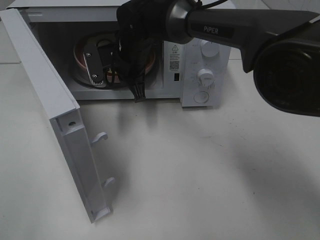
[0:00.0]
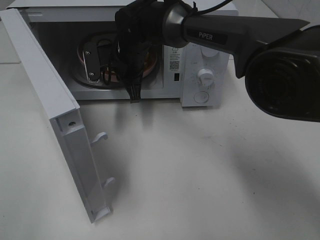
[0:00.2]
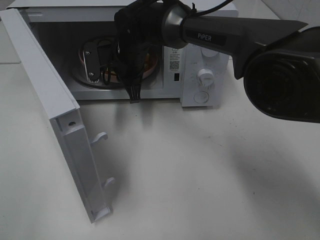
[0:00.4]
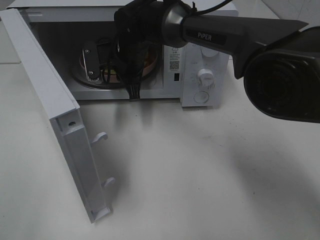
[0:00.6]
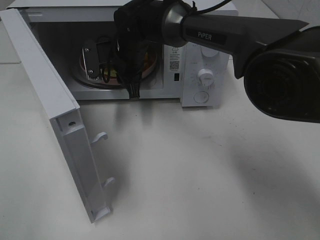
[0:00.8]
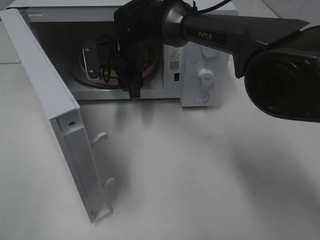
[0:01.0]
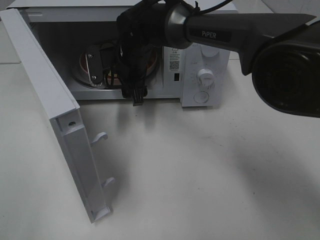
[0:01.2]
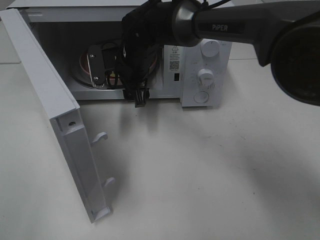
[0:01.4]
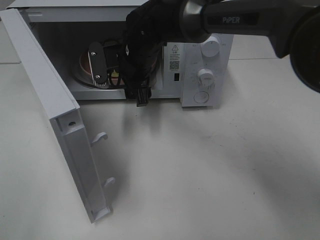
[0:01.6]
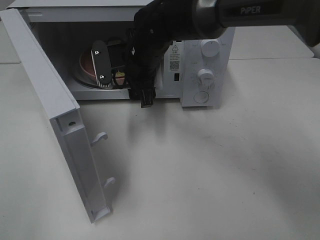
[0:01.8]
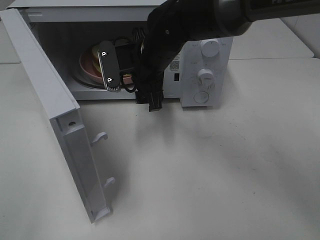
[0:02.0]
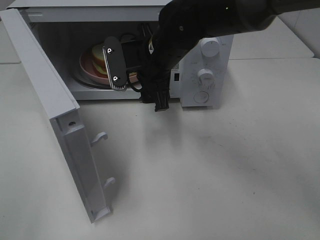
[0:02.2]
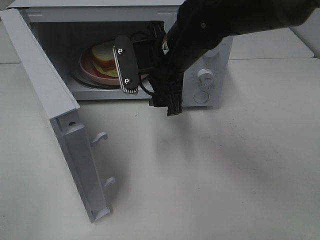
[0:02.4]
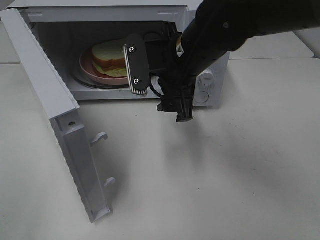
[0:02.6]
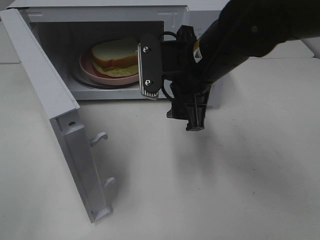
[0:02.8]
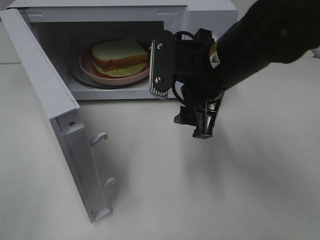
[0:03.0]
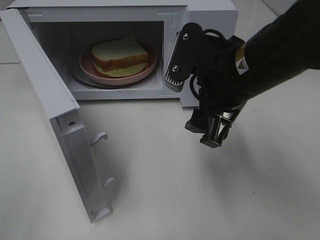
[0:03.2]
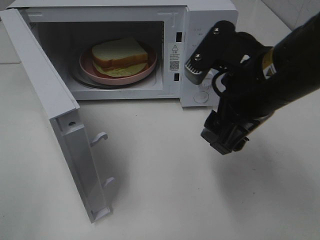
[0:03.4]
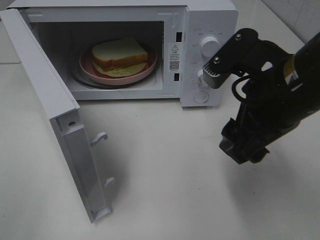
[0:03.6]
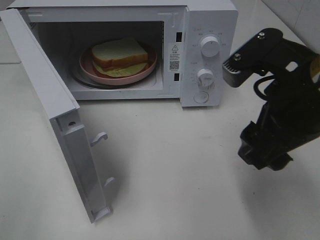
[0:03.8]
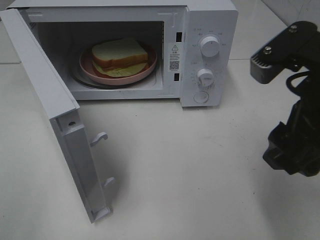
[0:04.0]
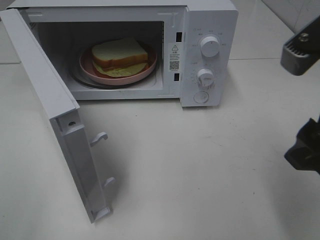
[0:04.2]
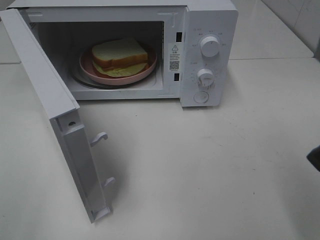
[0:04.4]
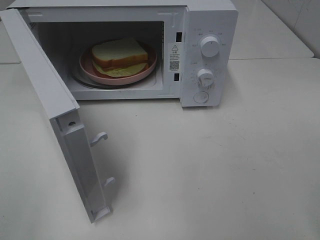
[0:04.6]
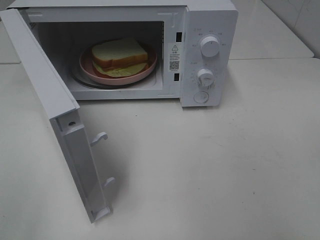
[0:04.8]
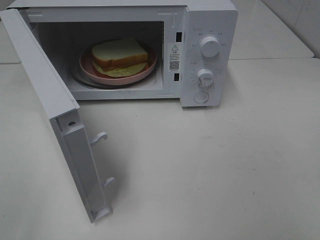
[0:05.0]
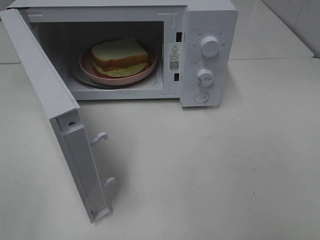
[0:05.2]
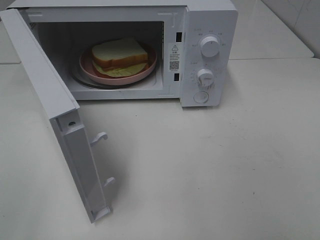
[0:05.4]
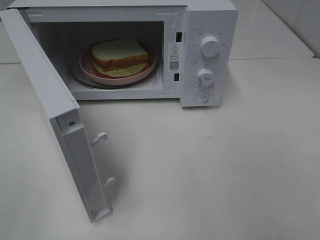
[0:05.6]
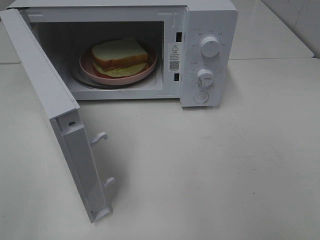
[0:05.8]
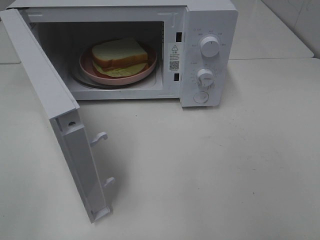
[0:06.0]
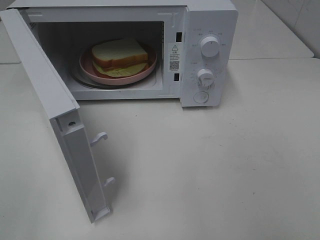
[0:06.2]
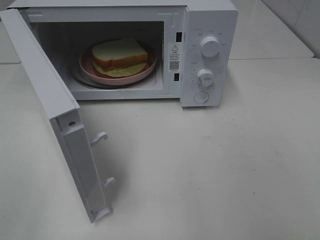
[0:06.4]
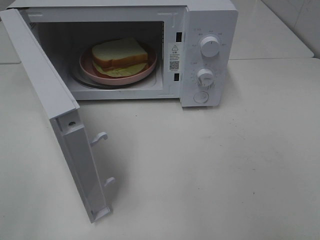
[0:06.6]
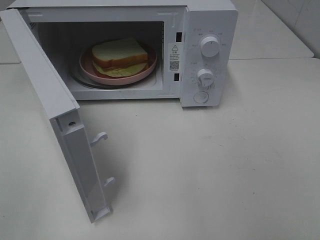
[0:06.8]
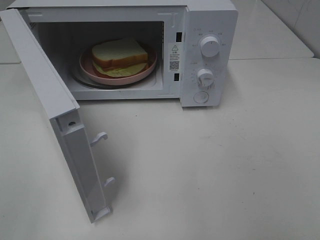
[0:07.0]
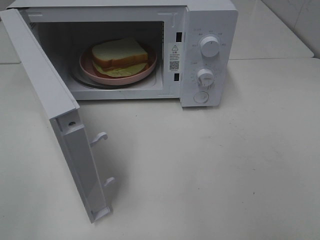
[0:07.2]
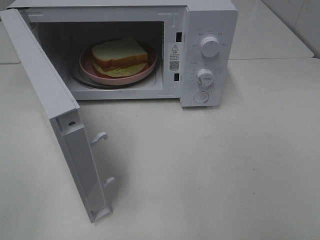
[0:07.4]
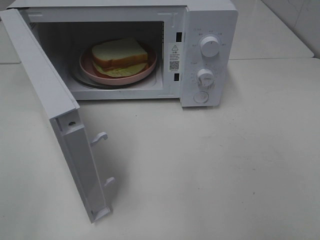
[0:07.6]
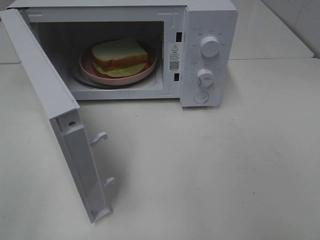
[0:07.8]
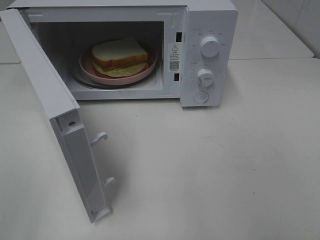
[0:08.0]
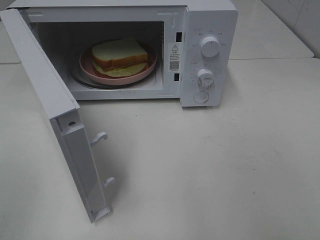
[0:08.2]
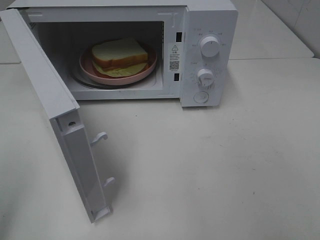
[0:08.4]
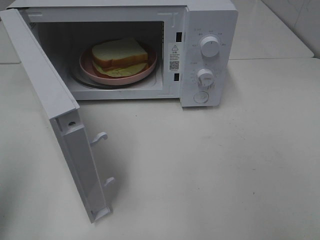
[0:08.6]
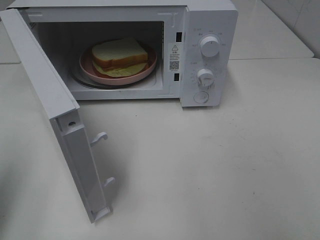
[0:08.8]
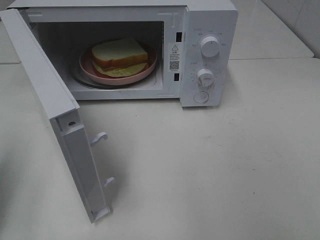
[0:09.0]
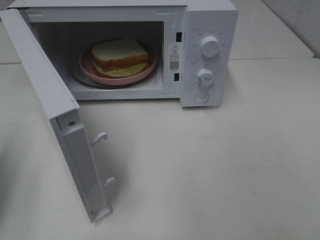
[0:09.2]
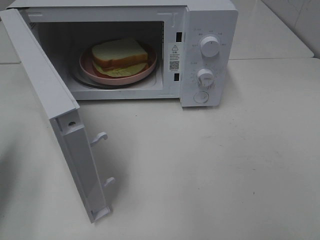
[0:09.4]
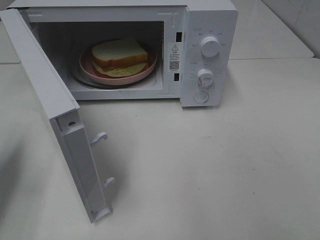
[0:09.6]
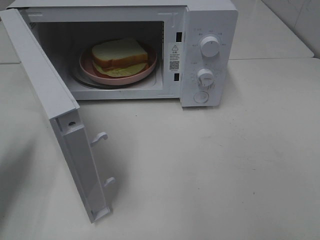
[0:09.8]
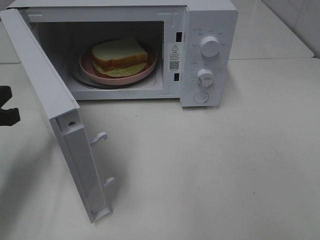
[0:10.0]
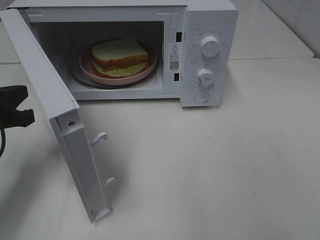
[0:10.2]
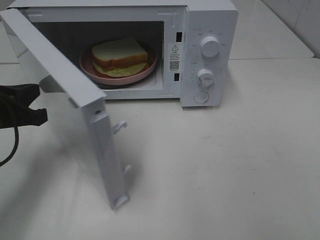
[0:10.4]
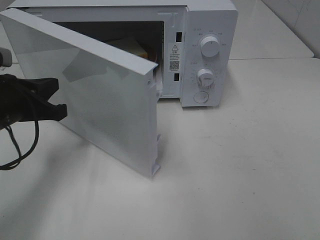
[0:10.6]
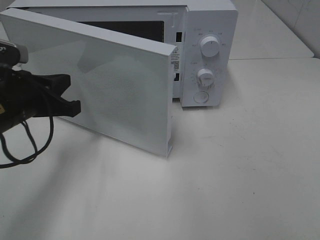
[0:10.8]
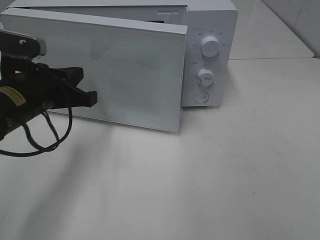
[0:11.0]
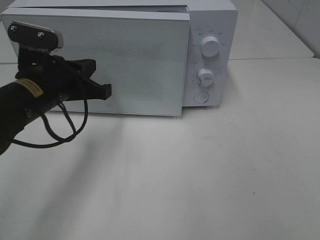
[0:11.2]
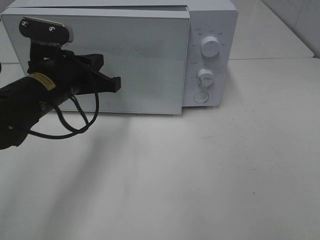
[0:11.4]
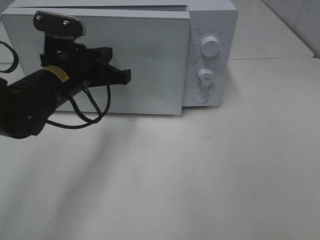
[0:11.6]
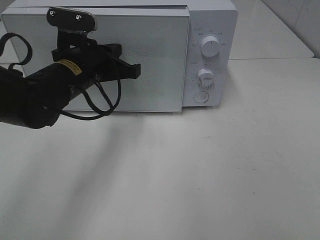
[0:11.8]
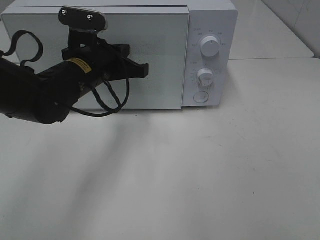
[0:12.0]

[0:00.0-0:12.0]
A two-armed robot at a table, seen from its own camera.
Task of the whole recording: Heat Sandwich.
0:00.0 to 0:01.6: The right gripper opens up.
0:01.6 to 0:03.0: The right gripper moves backward, to the right and upward, about 20 cm.
0:03.0 to 0:04.4: The right gripper goes roughly 20 cm backward, to the right and upward.
0:04.4 to 0:06.0: The right gripper is displaced backward and to the right by roughly 15 cm.
0:06.0 to 0:07.6: Both grippers stay about where they are.
0:07.6 to 0:09.0: The left gripper shifts about 15 cm forward, and closes.
0:09.0 to 0:10.4: The left gripper is displaced forward, downward and to the right by roughly 15 cm.
0:10.4 to 0:12.0: The left gripper goes about 15 cm to the right and forward.

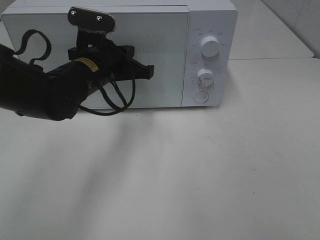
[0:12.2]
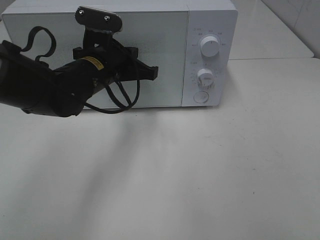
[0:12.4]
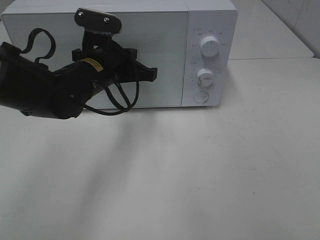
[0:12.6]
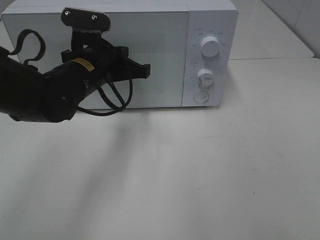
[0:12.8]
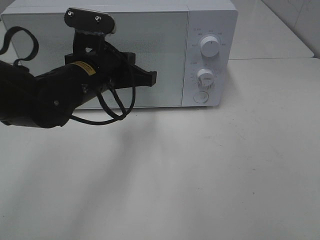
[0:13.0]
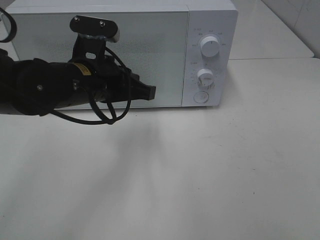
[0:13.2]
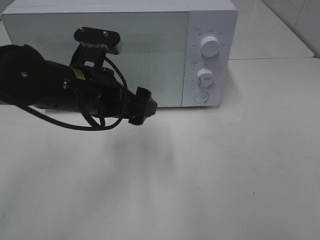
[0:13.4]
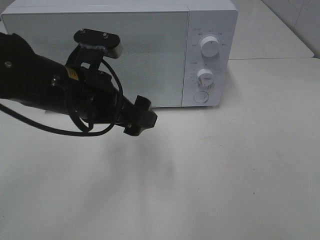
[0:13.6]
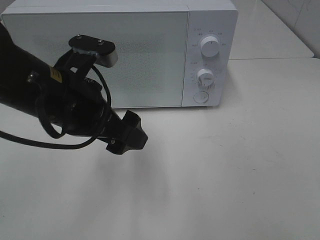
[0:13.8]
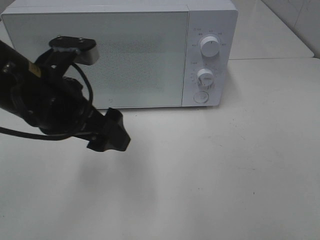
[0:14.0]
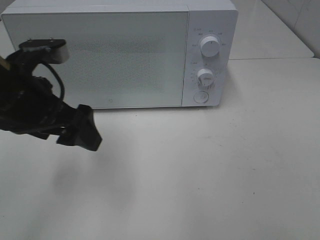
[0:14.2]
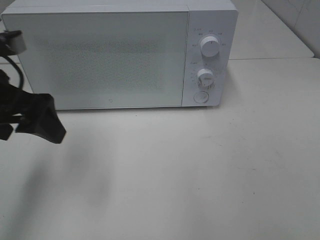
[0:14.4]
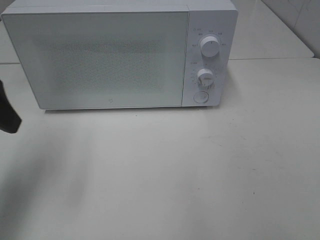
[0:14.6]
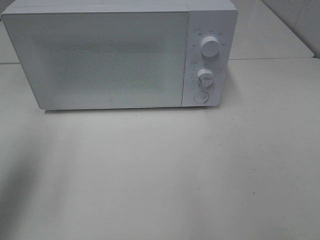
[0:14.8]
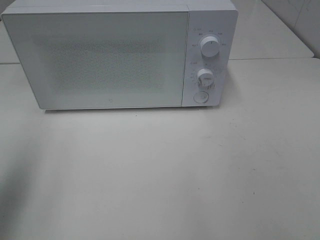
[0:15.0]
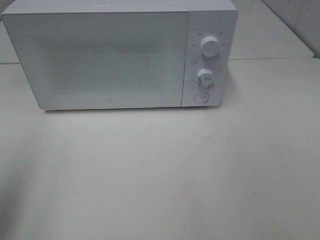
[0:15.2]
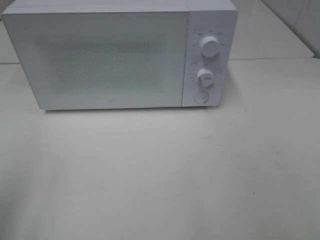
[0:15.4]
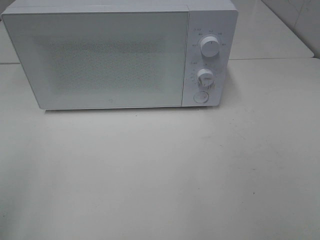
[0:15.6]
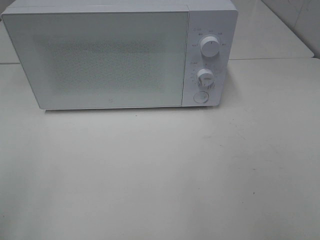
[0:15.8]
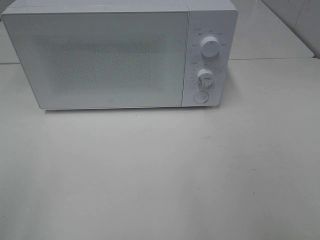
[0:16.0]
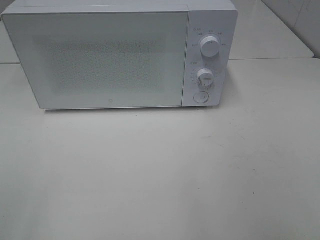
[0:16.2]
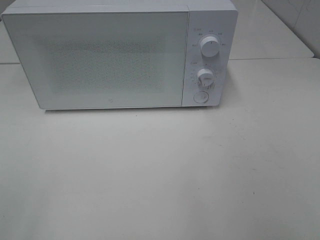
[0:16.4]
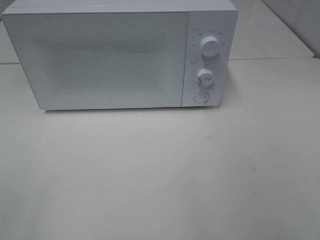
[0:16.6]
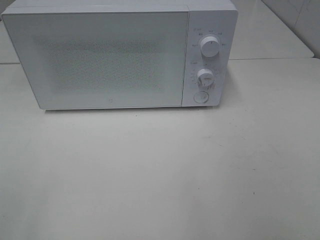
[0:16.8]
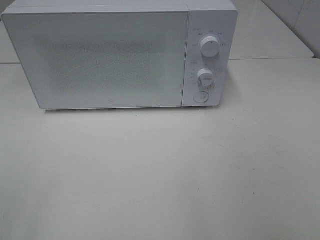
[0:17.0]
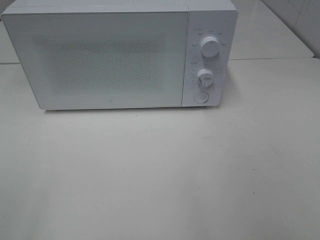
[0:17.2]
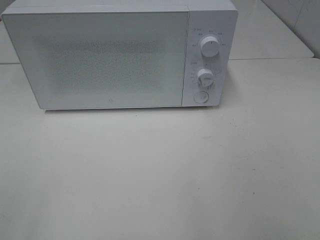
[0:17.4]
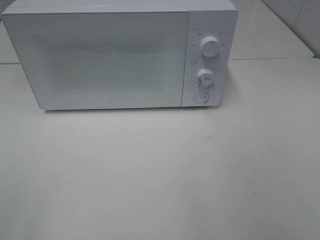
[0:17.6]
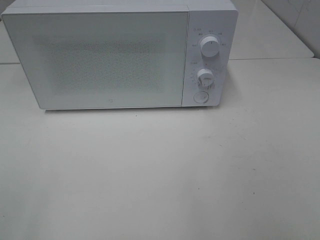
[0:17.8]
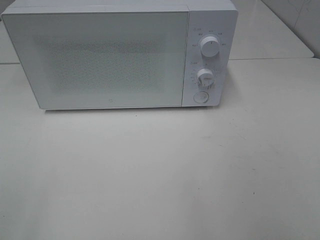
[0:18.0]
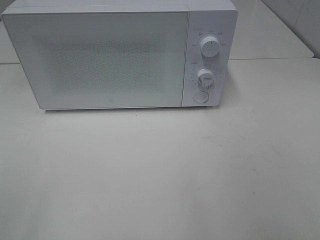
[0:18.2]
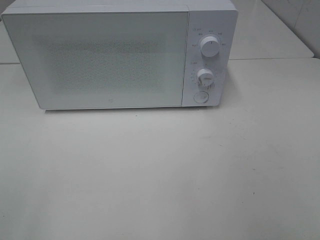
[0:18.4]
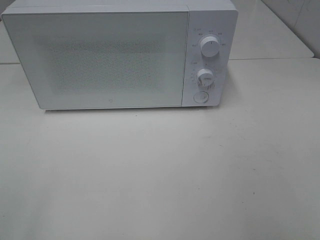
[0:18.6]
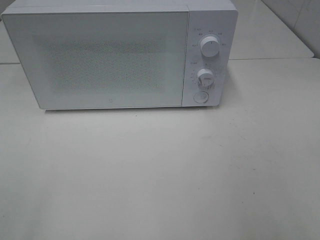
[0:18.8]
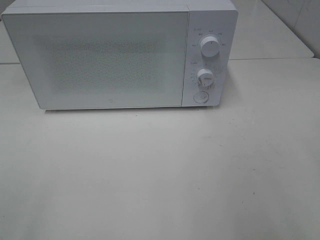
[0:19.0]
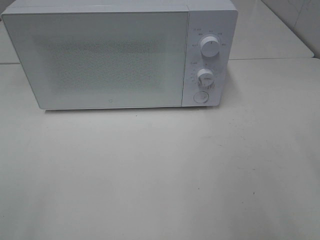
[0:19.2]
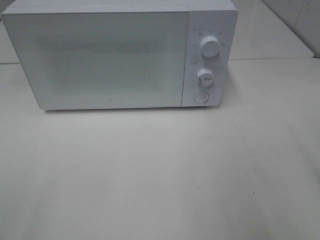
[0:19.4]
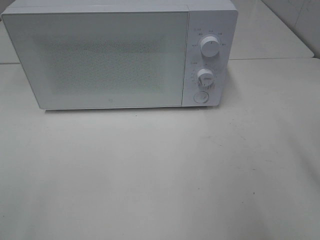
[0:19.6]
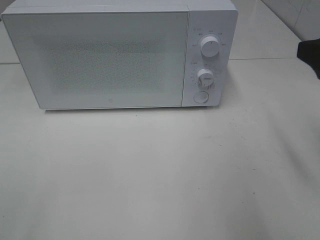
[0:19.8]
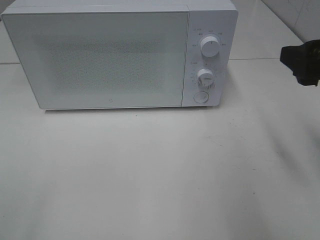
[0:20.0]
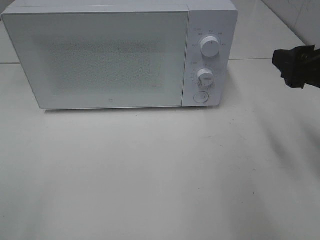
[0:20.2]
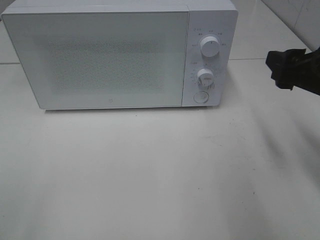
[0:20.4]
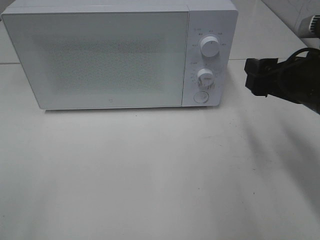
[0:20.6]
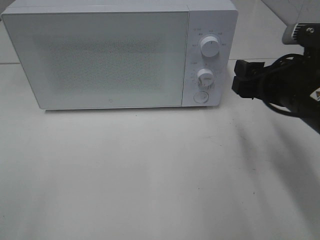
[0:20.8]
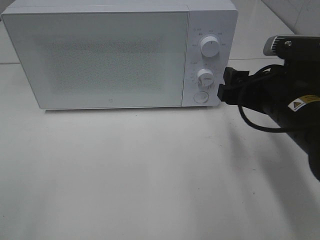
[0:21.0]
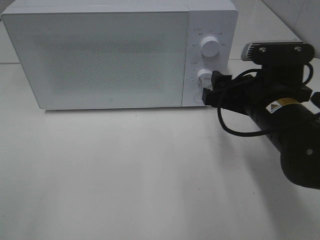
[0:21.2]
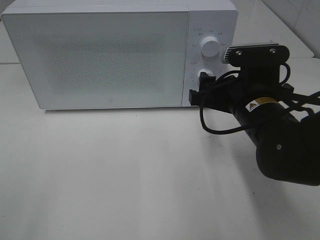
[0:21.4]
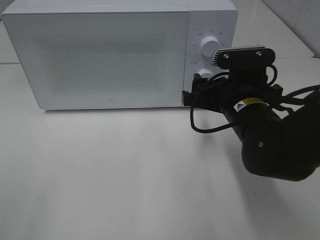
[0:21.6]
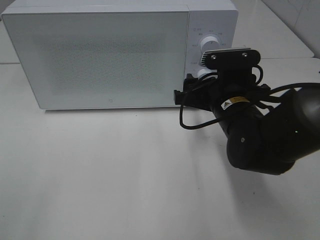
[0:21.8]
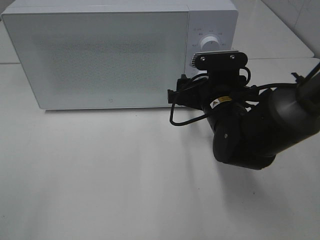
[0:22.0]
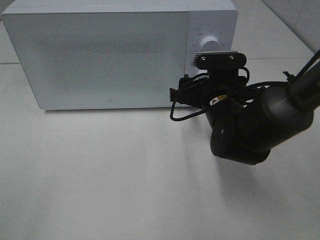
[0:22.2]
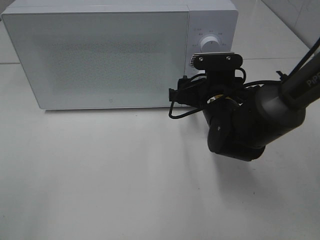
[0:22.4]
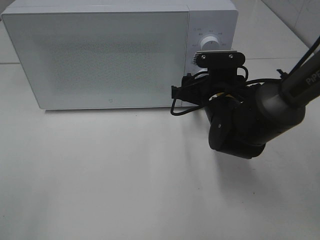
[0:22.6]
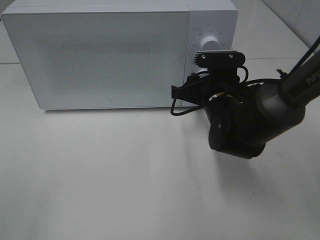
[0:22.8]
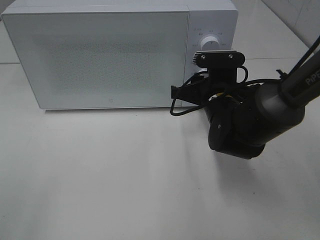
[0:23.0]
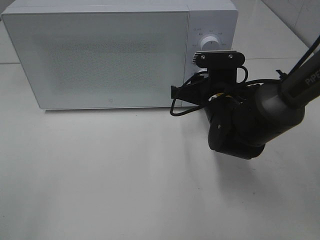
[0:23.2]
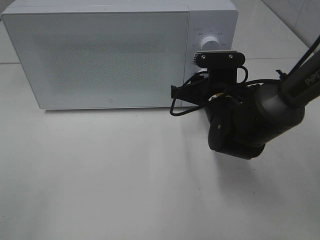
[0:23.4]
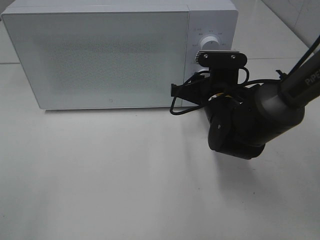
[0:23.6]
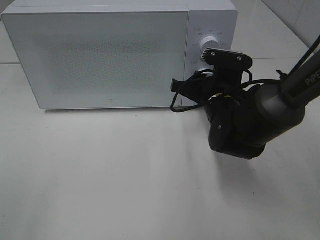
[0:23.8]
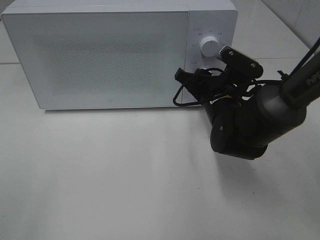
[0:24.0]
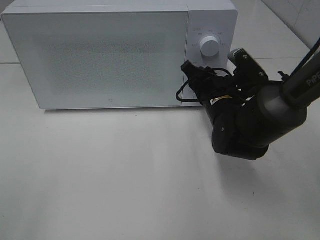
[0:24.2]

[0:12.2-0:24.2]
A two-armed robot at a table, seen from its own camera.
Task of the whole recording: Heat Sandwich.
0:12.2 to 0:13.8: The left gripper shifts approximately 10 cm backward, and opens its fingers.
0:13.8 to 0:15.2: The left gripper heads to the left, backward and upward, covering about 25 cm.
0:15.2 to 0:16.6: The left gripper moves backward, about 10 cm.
0:16.6 to 0:18.2: Neither gripper changes place.
0:18.2 to 0:19.8: The right gripper goes roughly 20 cm forward.
0:19.8 to 0:21.2: The right gripper shifts roughly 15 cm downward, to the left and forward.
0:21.2 to 0:22.6: The right gripper is displaced forward and downward by about 10 cm.
